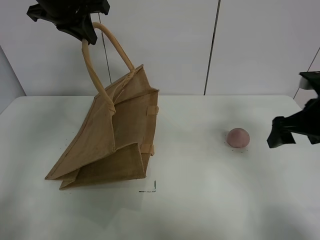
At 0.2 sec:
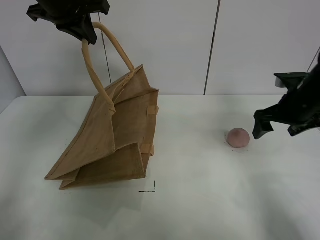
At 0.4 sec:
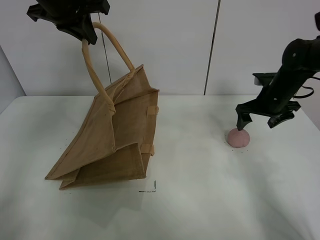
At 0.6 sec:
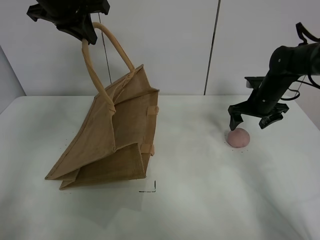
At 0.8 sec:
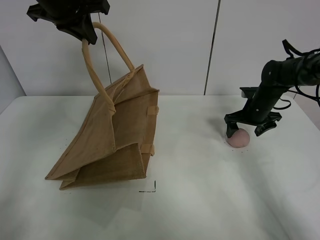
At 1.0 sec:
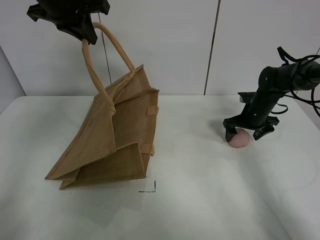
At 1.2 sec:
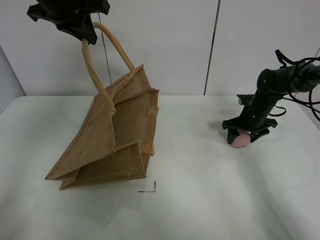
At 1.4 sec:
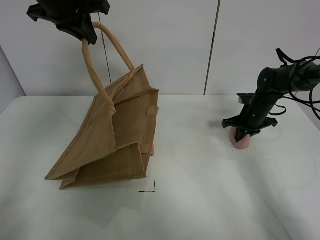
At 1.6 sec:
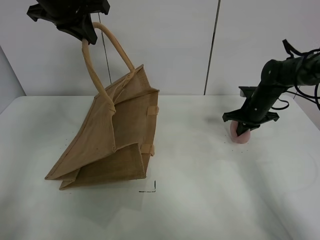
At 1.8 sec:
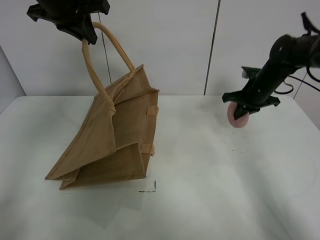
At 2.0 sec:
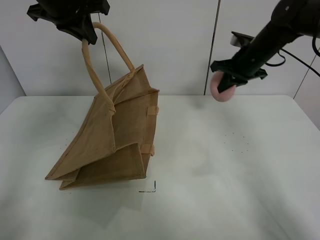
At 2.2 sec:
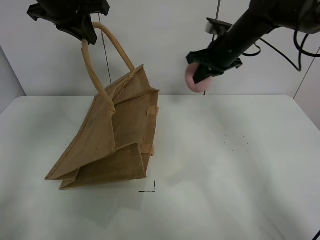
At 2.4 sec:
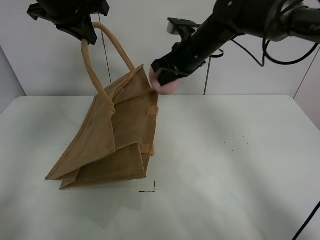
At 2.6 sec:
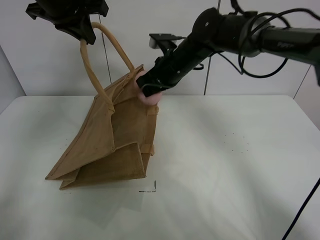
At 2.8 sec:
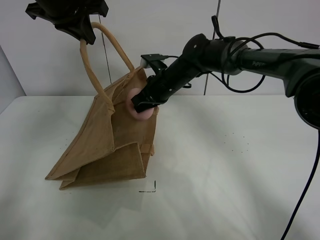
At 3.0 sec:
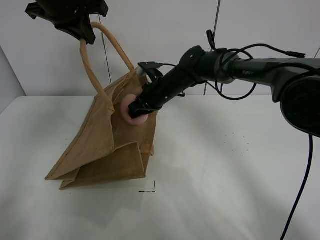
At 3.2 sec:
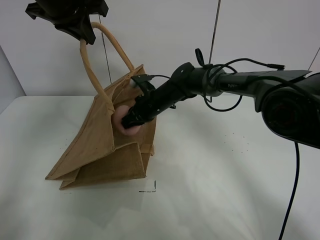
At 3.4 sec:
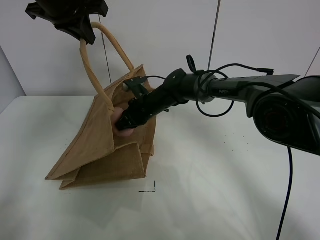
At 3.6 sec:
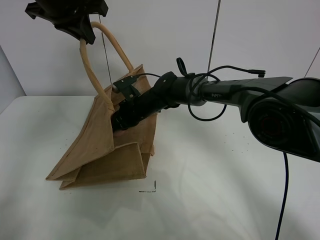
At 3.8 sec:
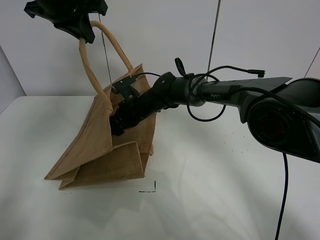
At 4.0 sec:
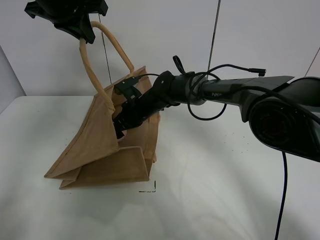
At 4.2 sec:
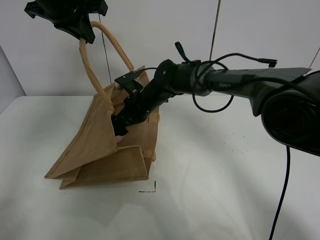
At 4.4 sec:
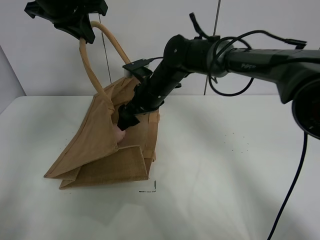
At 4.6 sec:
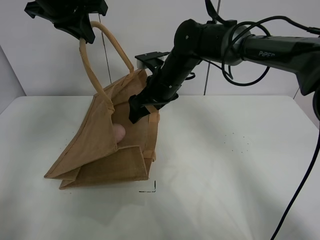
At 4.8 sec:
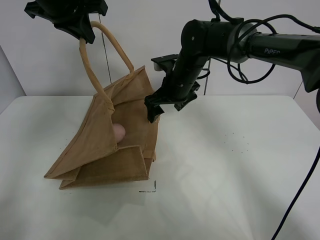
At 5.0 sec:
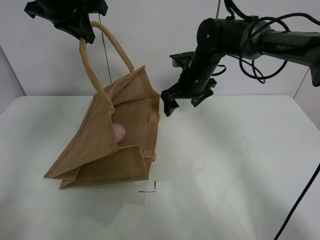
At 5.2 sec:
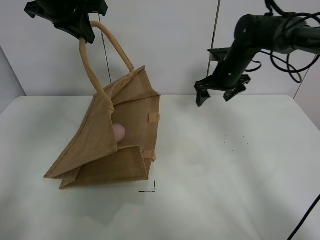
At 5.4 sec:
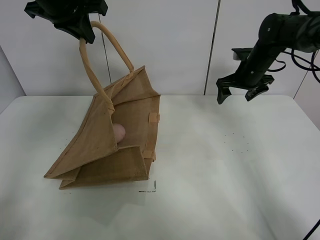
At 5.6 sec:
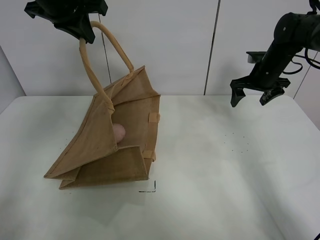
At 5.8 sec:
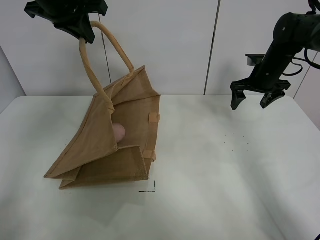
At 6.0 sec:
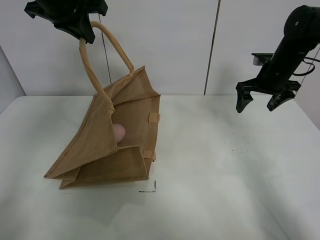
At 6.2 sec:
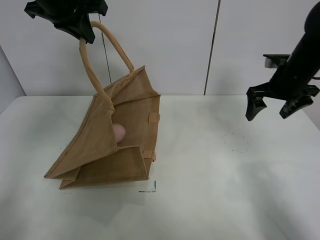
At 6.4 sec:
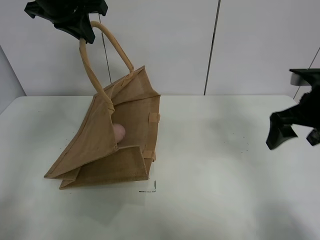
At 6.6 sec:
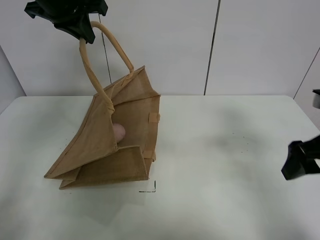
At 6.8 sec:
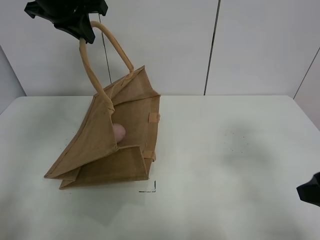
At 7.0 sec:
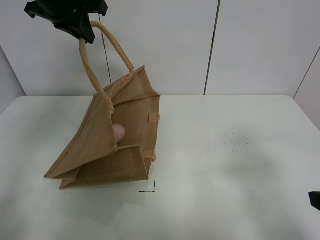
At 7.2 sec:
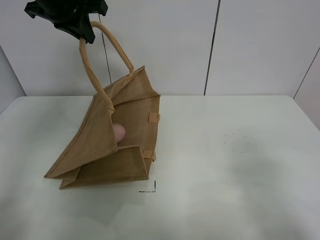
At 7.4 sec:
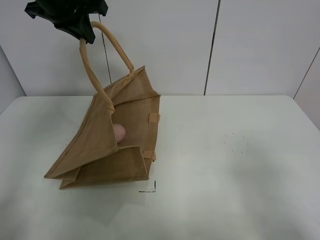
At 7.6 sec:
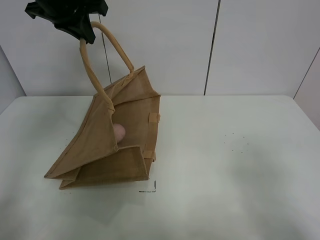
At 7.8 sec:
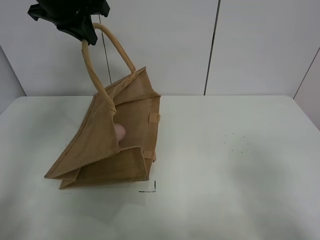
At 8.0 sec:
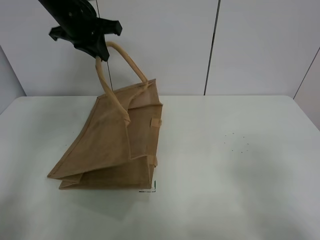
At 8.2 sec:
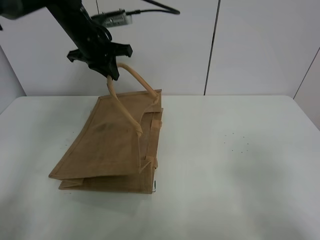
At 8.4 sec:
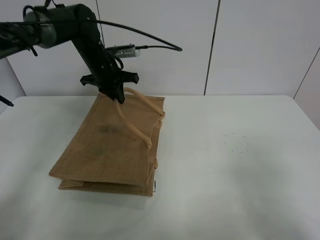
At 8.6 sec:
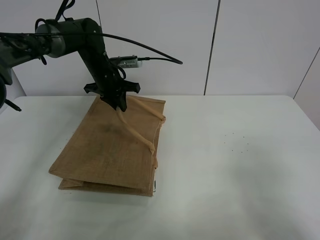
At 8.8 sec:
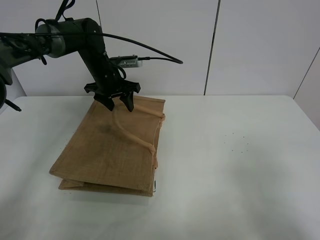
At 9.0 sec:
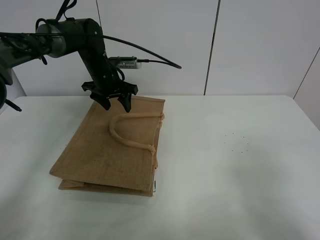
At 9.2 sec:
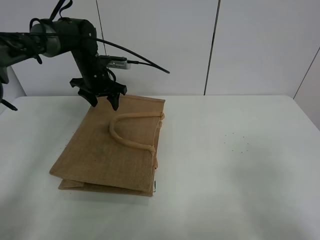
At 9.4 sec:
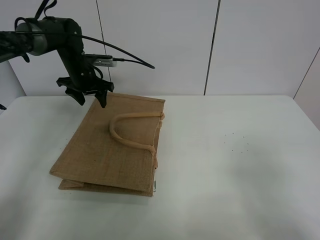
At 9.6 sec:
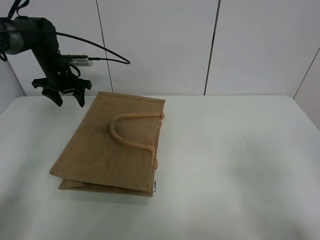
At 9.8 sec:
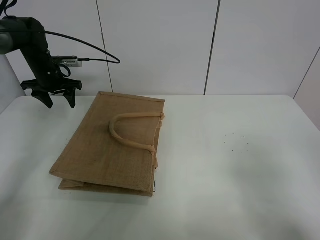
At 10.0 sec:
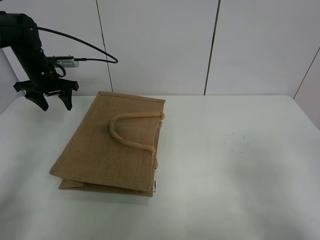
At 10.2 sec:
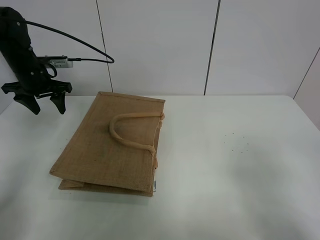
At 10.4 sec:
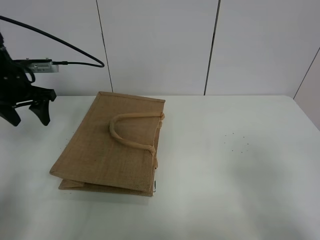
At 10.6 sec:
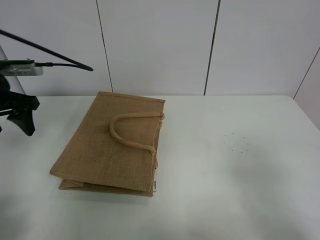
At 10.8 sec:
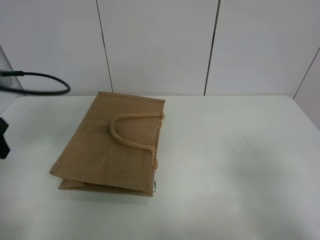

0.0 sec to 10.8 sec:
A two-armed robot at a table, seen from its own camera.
Task of the whole recording: open the brown linen bag and put the peach in the bag.
Step, 0.0 sec to 1.4 sec: Grasp the peach with right gripper.
Step, 1.6 sec to 4.8 sec: Place the peach in the handbag with right gripper.
Step, 5.0 sec to 9.4 sec: Put down the handbag with left grippe.
0.0 sec to 1.6 sec: The right gripper shifts approximately 20 cm forward and downward, and closes.
1.6 sec to 3.0 sec: The right gripper moves to the left, approximately 25 cm.
3.0 sec to 4.6 sec: The right gripper travels upward by some 5 cm, and opens.
4.6 sec to 6.2 sec: The right gripper heads to the right, covering roughly 25 cm.
6.2 sec to 7.8 sec: The right gripper travels backward by roughly 35 cm.
7.8 sec to 9.2 sec: The left gripper heads downward and forward, covering roughly 20 cm, and opens up.
9.2 sec to 10.8 sec: The left gripper shifts approximately 30 cm backward and to the left.

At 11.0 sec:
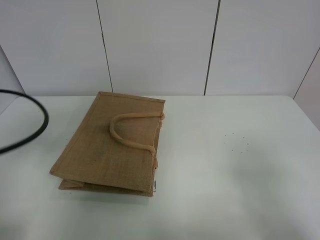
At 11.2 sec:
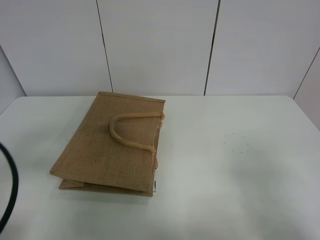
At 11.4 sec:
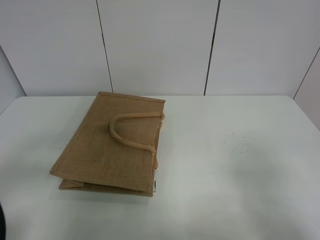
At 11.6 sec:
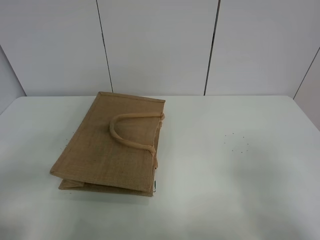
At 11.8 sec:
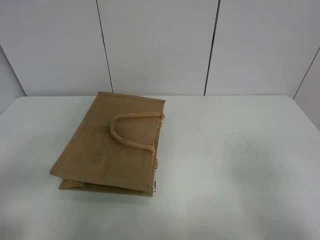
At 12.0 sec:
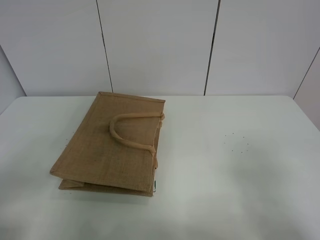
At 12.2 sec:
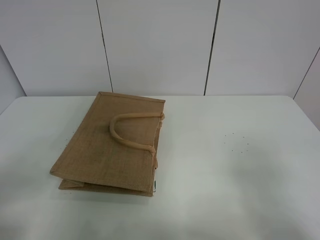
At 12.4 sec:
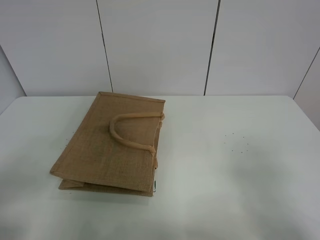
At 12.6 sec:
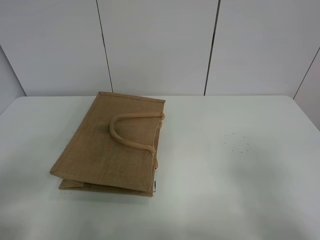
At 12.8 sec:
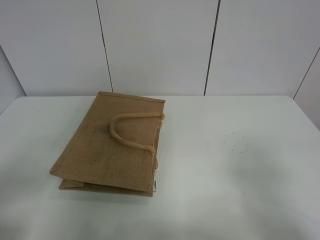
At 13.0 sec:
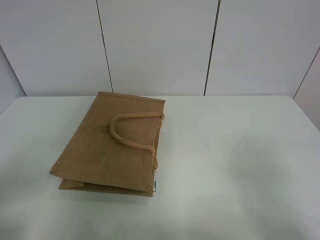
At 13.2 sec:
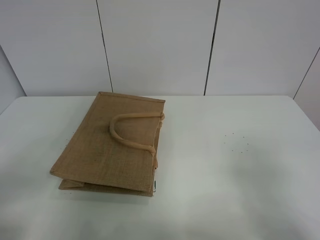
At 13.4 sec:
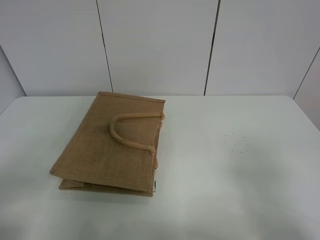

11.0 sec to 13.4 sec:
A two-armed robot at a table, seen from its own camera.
Task of the whole recording: open the brown linen bag and put the peach in the bag.
11.0 sec to 12.2 sec: The left gripper is displaced backward by approximately 15 cm.
12.2 sec to 13.4 sec: Neither gripper changes place.
